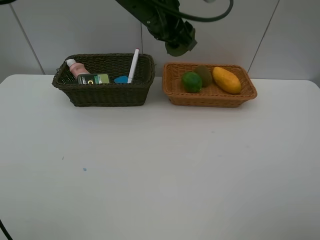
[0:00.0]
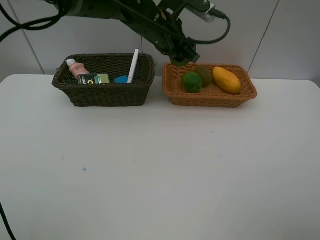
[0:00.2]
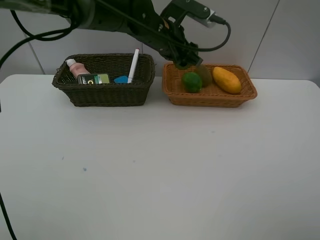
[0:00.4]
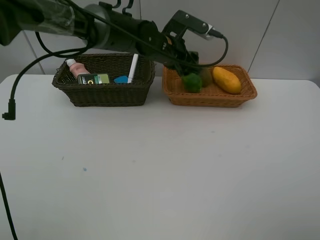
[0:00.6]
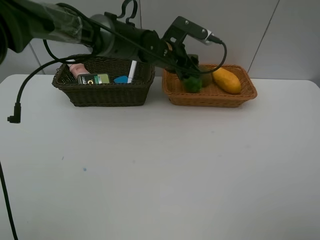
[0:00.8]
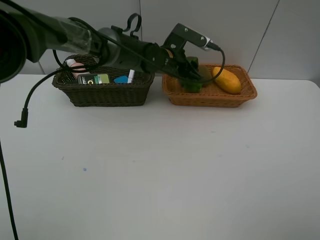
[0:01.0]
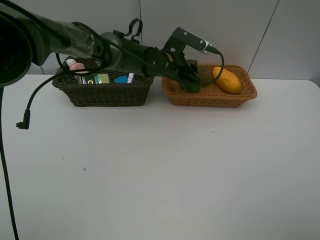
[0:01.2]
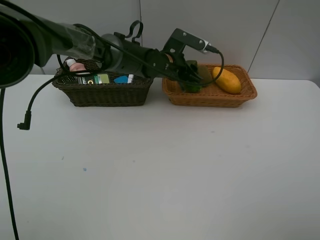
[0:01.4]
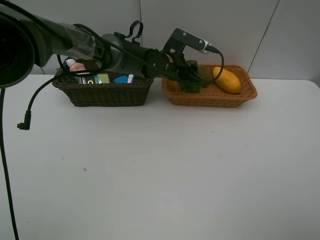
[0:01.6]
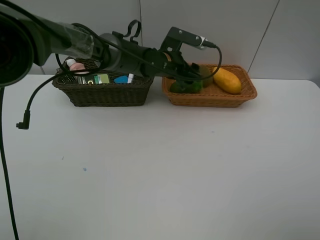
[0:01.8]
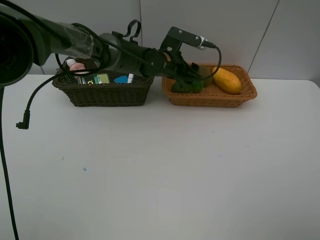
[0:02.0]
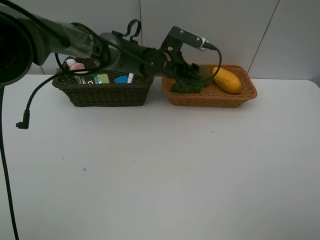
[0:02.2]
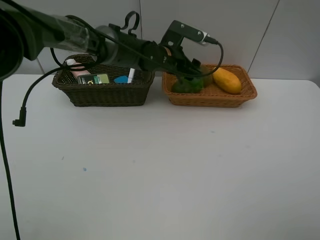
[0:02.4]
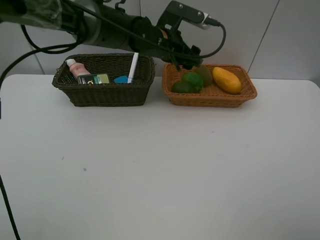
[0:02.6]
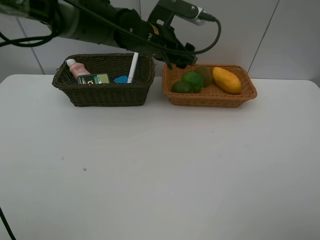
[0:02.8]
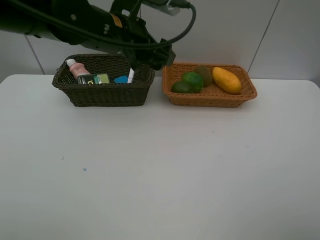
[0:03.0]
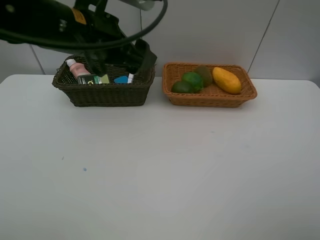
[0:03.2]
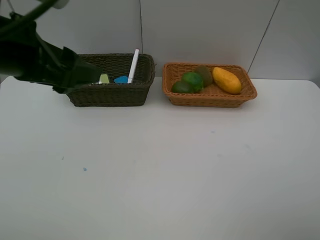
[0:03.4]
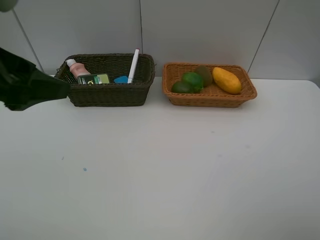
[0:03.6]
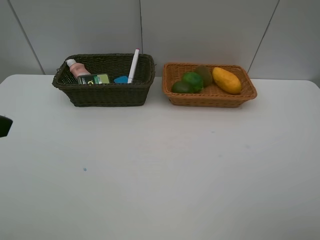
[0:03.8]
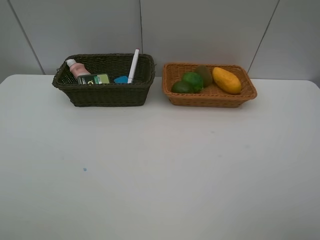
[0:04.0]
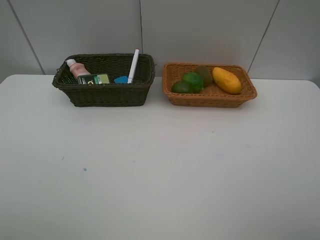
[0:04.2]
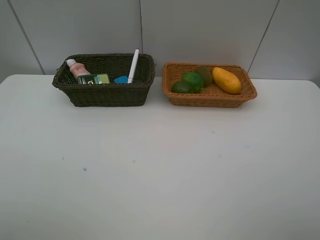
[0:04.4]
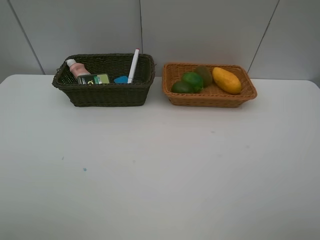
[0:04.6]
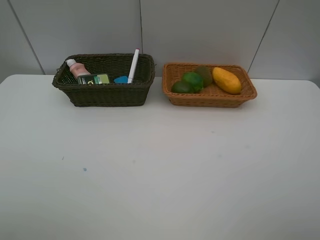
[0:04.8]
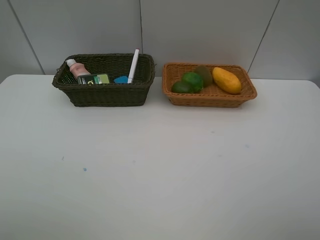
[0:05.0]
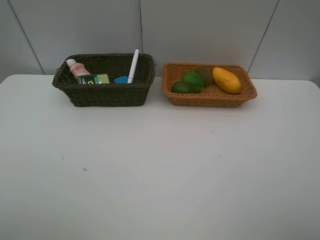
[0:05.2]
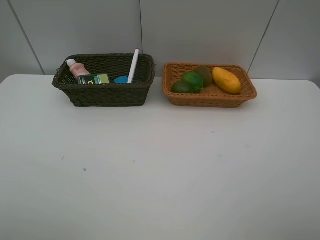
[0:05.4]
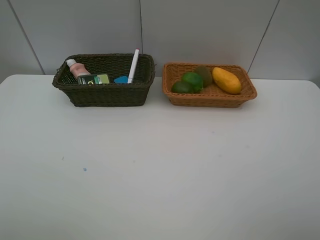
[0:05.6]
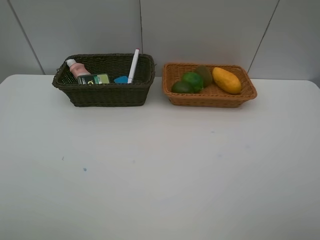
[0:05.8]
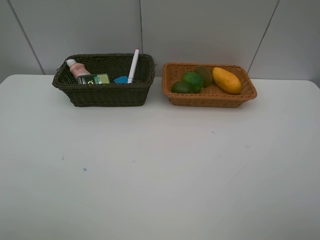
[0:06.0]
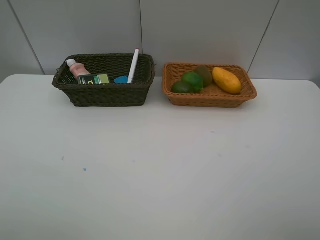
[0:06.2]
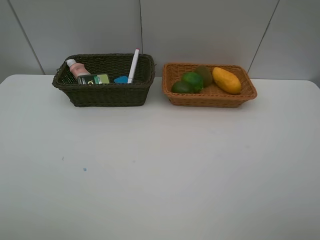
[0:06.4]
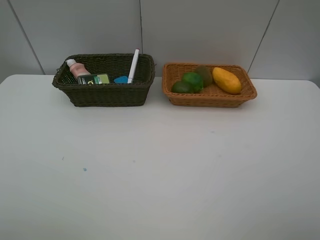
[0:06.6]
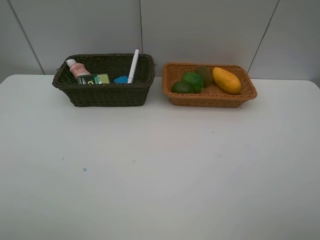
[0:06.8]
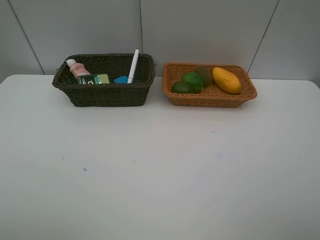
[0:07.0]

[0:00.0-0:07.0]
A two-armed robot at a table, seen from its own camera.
Task of the whole recording: Place multiple objects separately in different baskets.
Step, 0:00.0 to 0:02.6: Place the lime in the light basket with left gripper.
0:00.0 to 0:01.4: The left gripper heads downward, covering about 15 cm.
0:01.4 to 0:02.8: The left gripper goes some 10 cm upward.
0:02.8 to 0:04.2: The left gripper is displaced backward and to the left by about 40 cm.
0:05.6 to 0:07.0: Both grippers stay about where they are.
